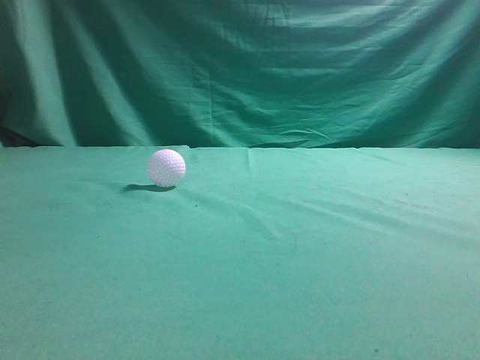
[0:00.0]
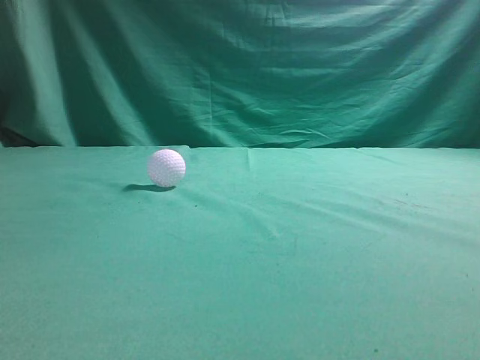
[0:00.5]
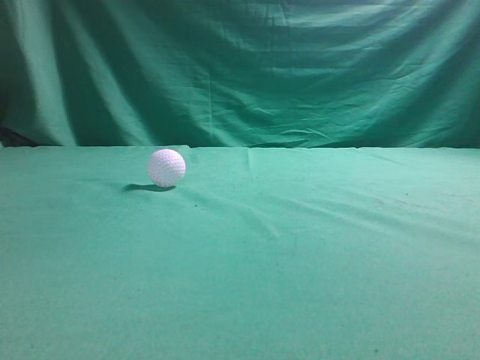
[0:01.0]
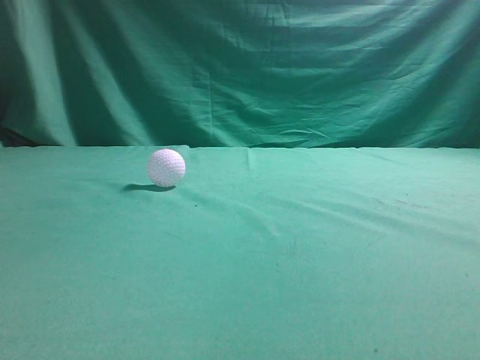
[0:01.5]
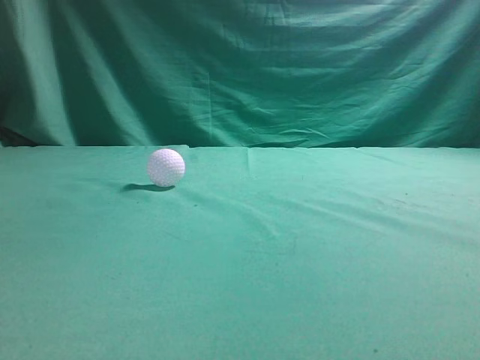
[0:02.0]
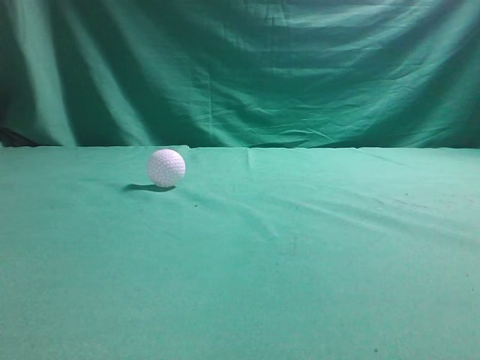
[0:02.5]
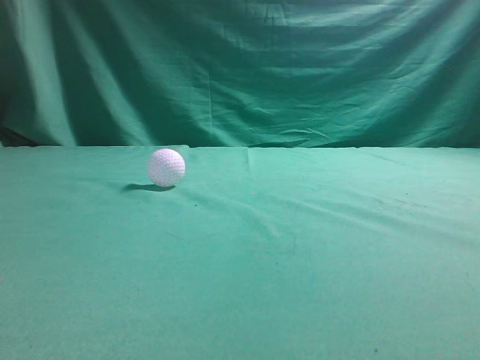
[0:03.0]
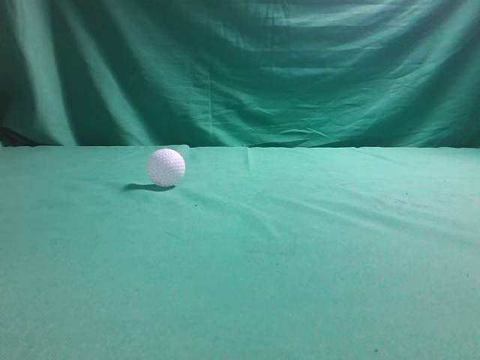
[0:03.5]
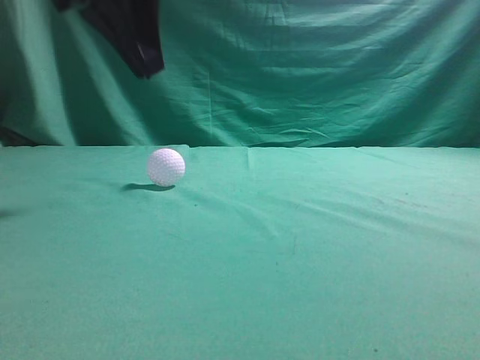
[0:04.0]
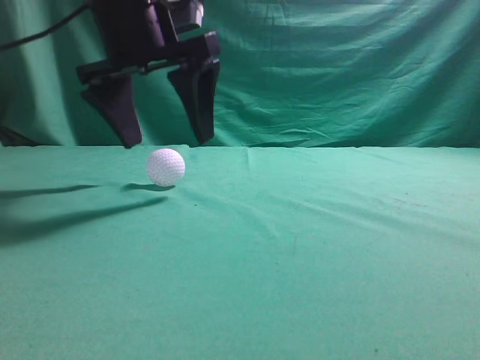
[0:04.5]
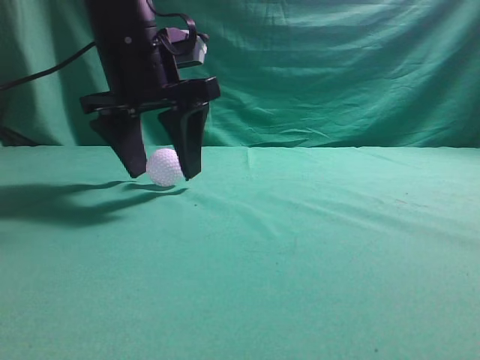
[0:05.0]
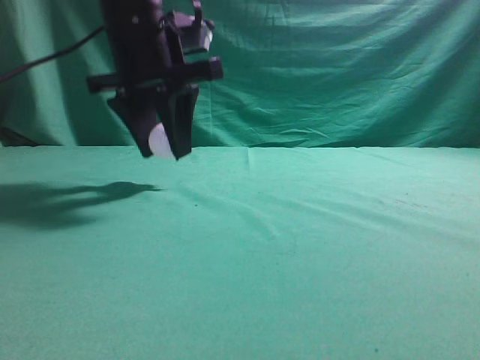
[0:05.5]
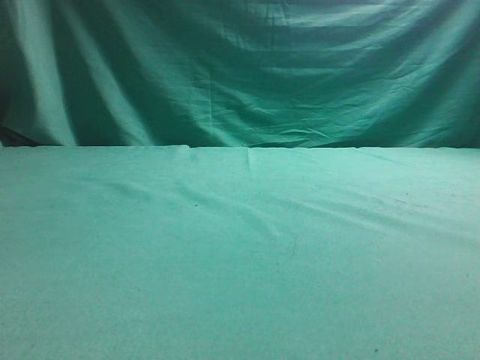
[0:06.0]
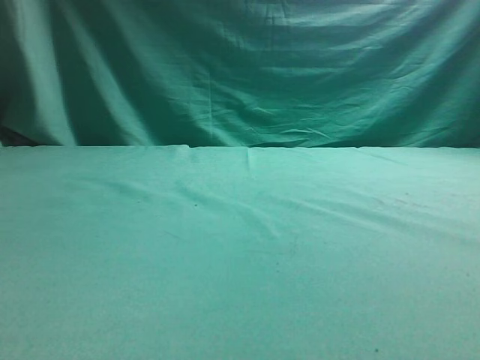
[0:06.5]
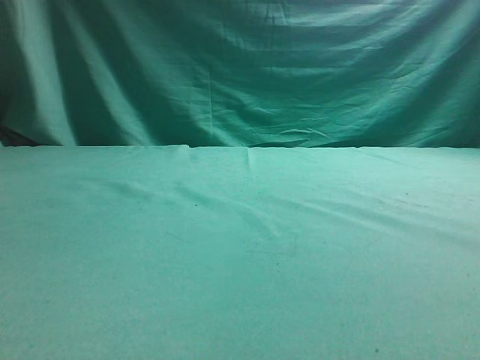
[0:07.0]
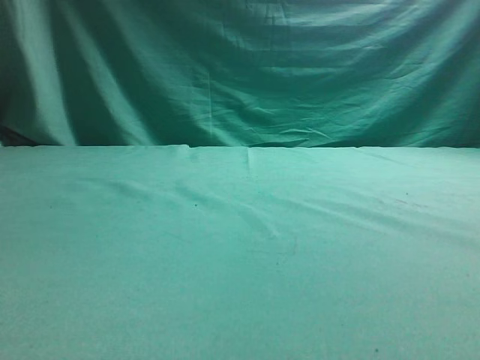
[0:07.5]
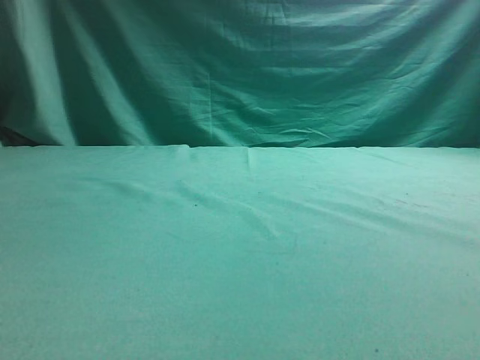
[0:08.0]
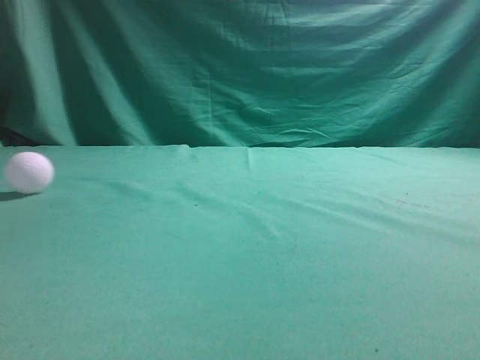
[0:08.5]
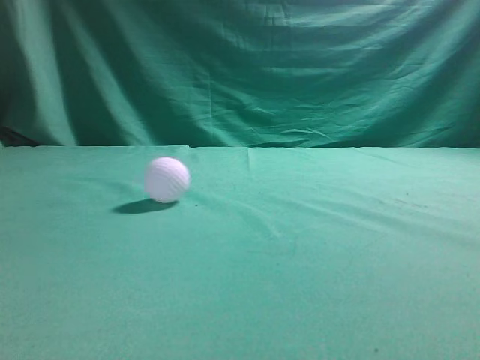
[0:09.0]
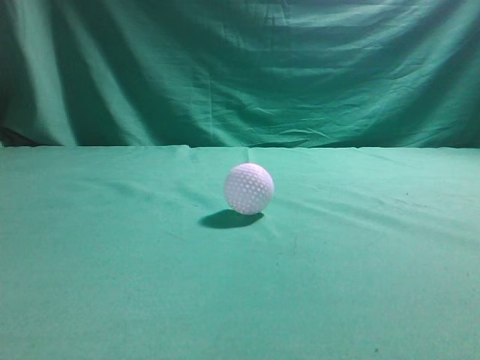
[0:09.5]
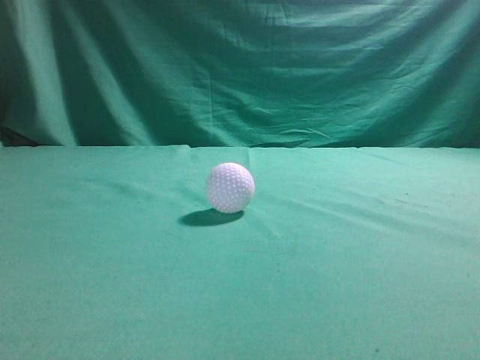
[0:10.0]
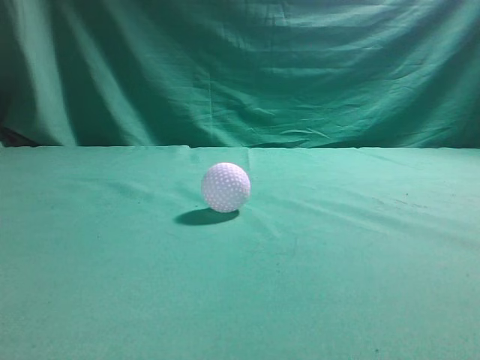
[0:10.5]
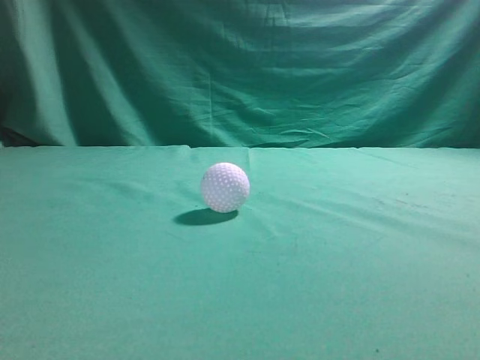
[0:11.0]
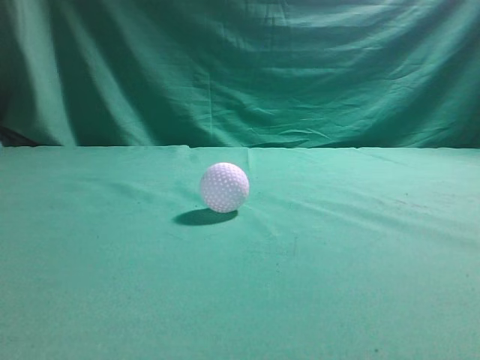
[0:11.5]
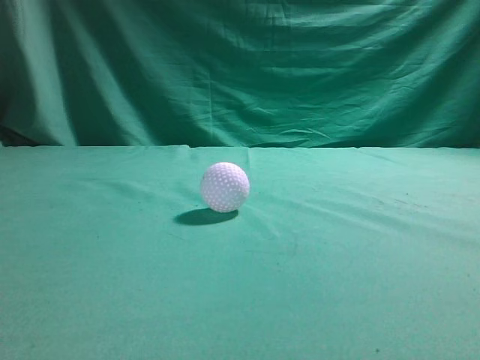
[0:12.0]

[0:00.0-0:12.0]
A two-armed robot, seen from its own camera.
Task of the whole recording: pick up the ball and place it on the plate, then pick up the ball from the plate and put it in the center of the table.
Step, 0:00.0 to 0:05.5: Grab the spherical object with your left arm.
0:02.0 to 0:04.0: The left gripper heads forward and to the right, covering about 30 cm.
0:04.0 to 0:06.0: The left gripper moves upward, some 5 cm, and opens up.
0:08.0 to 0:10.0: The left gripper heads backward and upward, covering roughly 30 cm, and closes its fingers.
0:10.0 to 0:12.0: The left gripper shifts about 5 cm downward, while the right gripper is displaced to the left, forward and upward by about 20 cm.

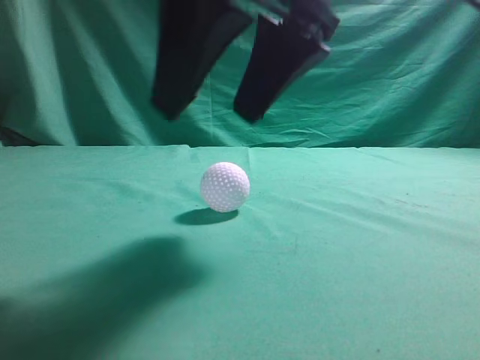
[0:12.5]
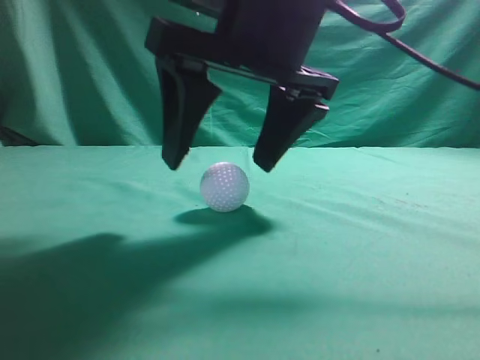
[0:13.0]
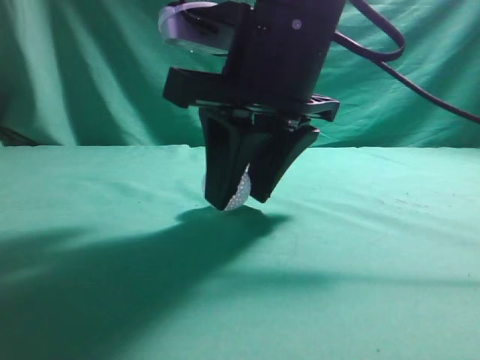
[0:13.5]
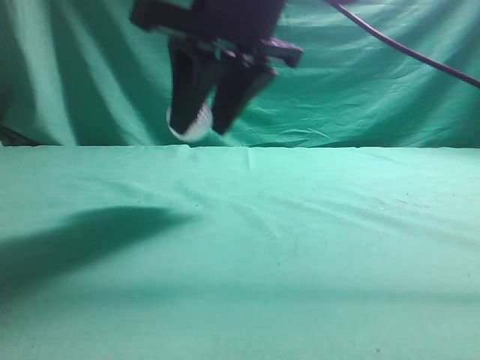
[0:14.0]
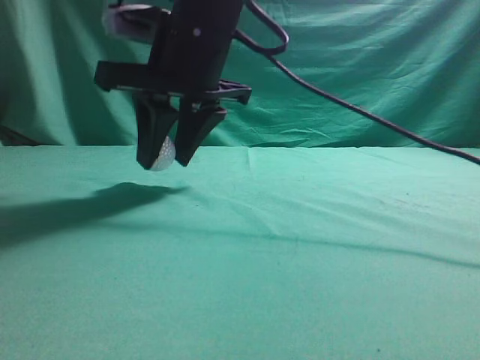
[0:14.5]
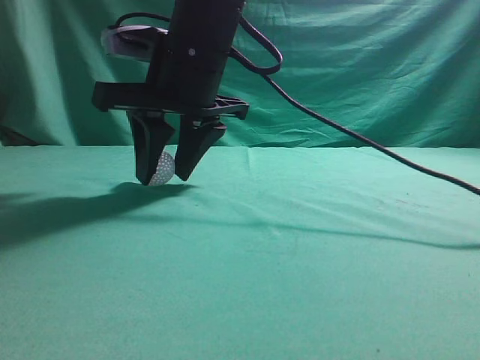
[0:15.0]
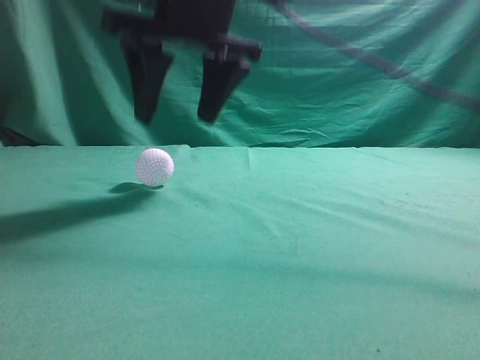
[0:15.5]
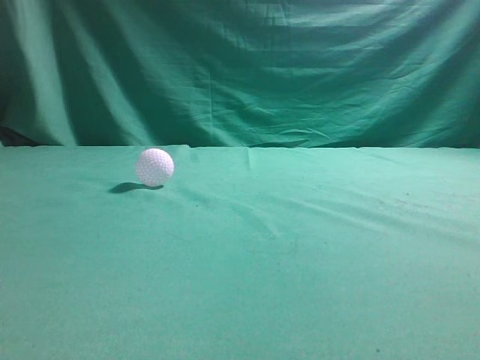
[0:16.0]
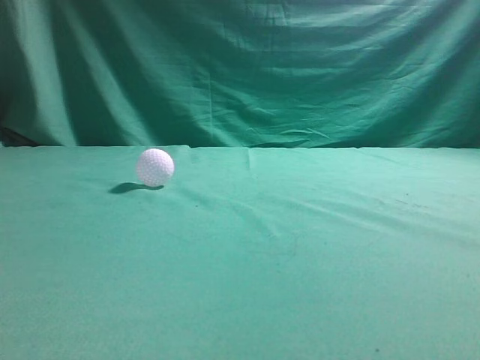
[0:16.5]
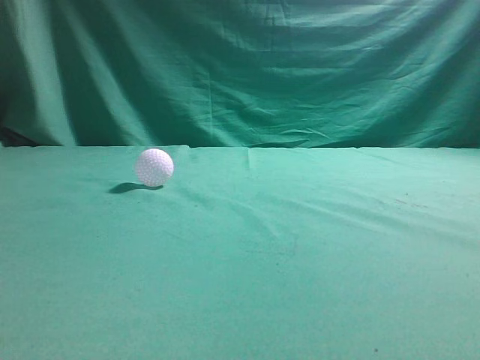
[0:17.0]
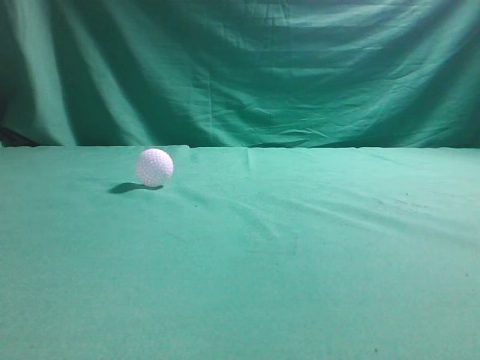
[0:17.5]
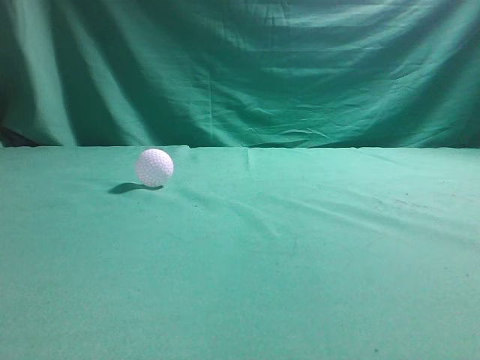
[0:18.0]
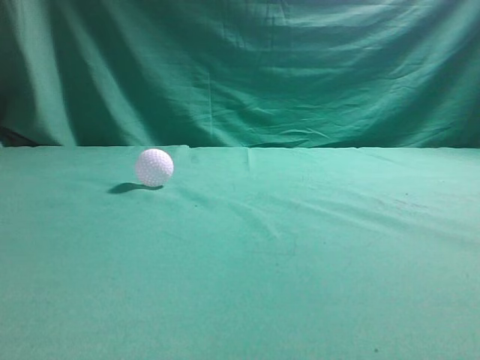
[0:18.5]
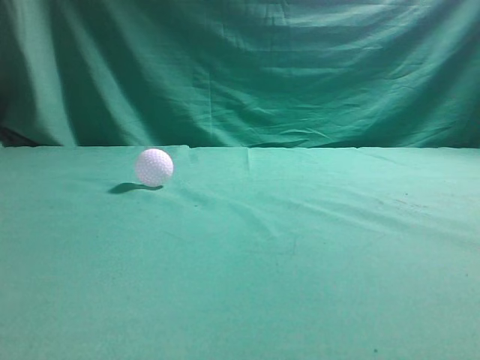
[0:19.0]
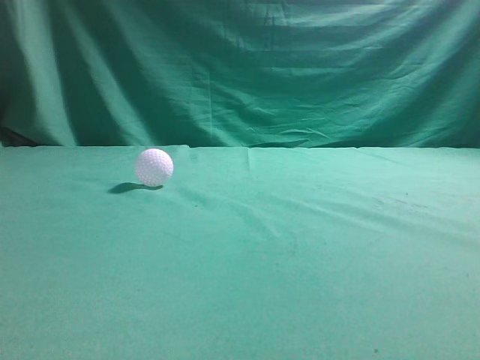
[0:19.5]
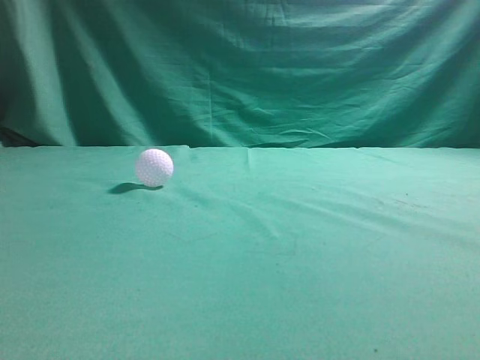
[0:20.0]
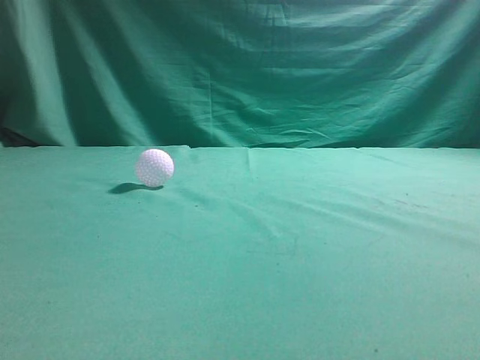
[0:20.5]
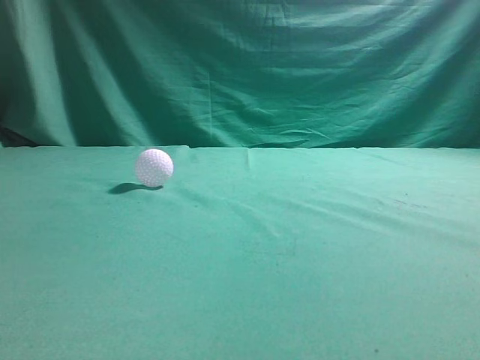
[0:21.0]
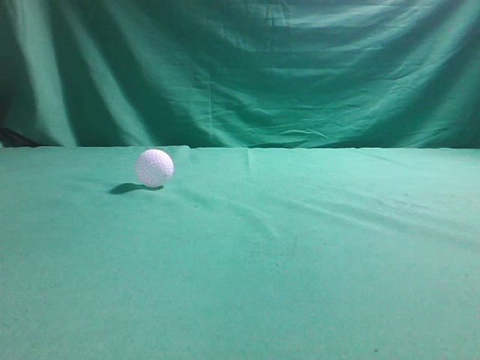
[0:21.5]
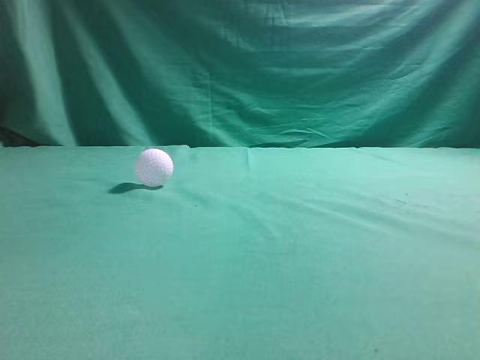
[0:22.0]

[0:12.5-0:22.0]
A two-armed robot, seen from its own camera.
Task of the whole recording: pick up the ball and place it on the plate, then pick up the ball from the plate and put it in the center of the table.
Step, 0:14.0 to 0:15.5: Put the picked-up object on the table.
0:12.5 to 0:14.5: The right gripper heads forward and to the left, covering about 15 cm.
0:14.5 to 0:16.5: The right gripper moves upward and to the right, roughly 30 cm, and closes up.
